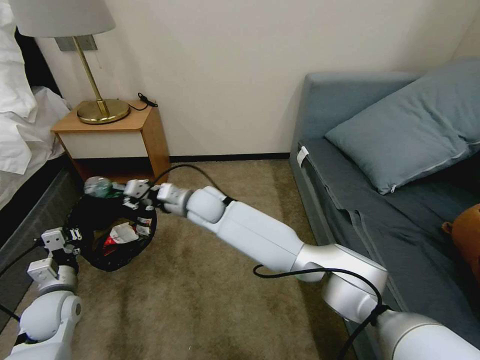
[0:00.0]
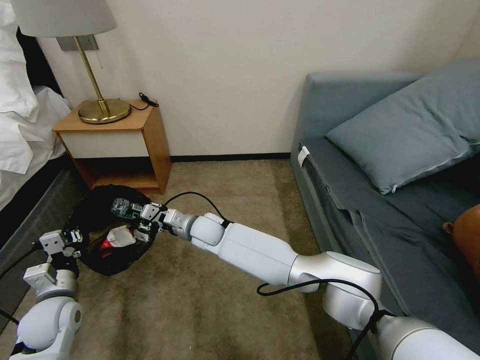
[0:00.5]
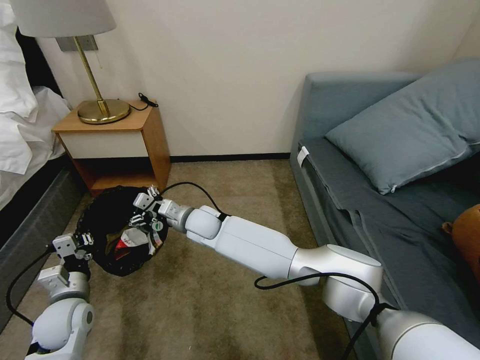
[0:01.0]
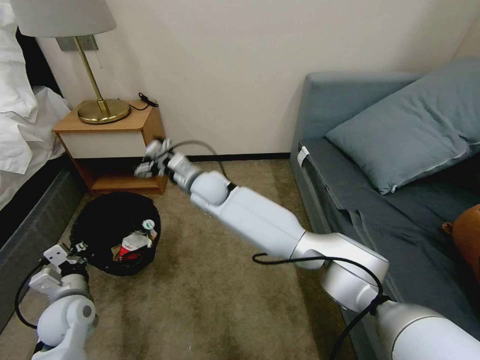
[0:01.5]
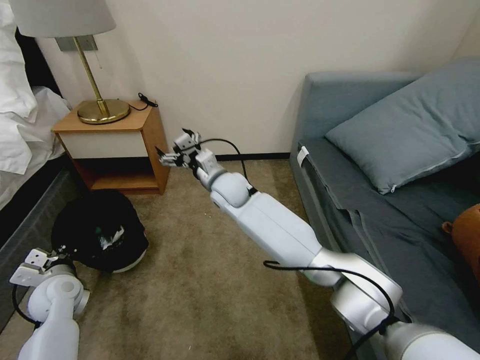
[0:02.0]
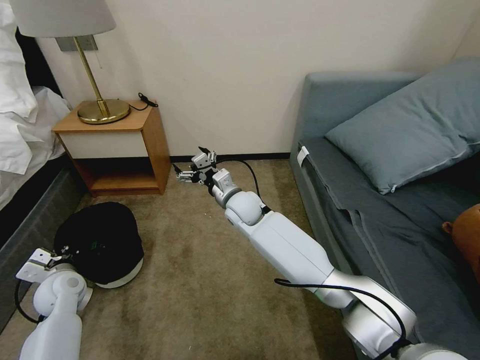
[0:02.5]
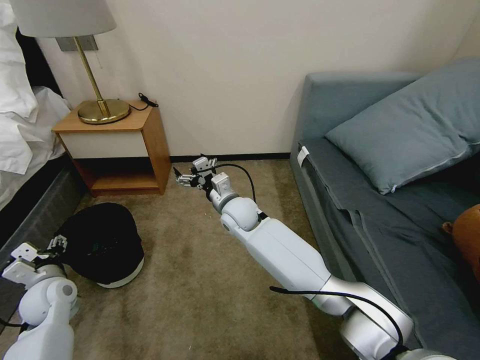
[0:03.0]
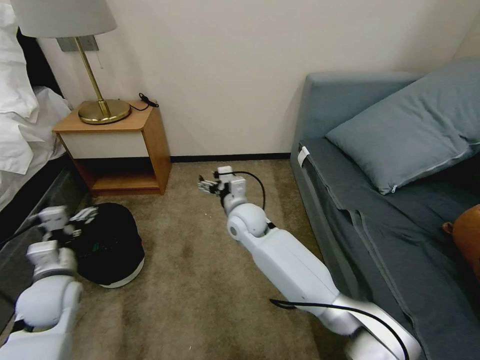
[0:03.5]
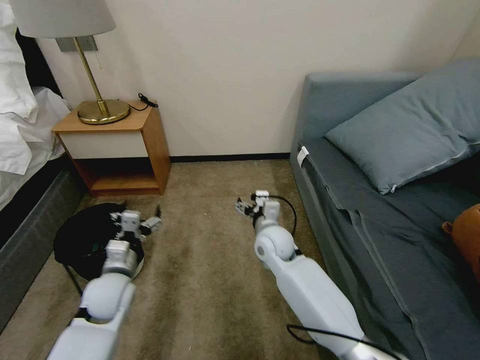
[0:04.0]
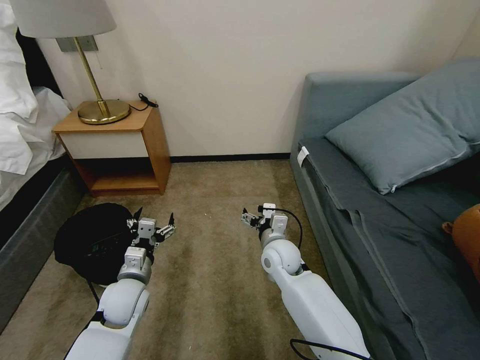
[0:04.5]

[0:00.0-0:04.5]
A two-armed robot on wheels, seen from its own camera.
Task of the whole recording: Pick up the trash bin, then pick up the garbage on the floor and place it into the trash bin.
0:00.0 to 0:02.0: The right gripper travels to the right by approximately 5 cm, travels downward and back again, approximately 10 cm each way, and opens.
0:02.0 to 0:04.5: The left gripper moves to the right, roughly 15 cm, and opens; the right gripper goes approximately 20 cm to the right, downward and backward.

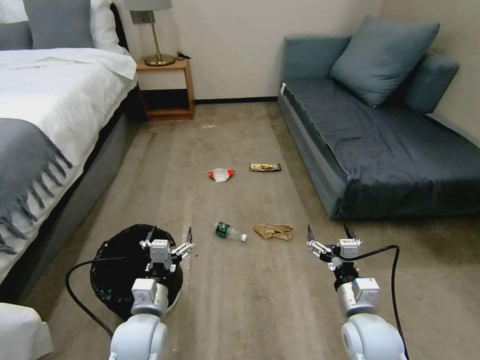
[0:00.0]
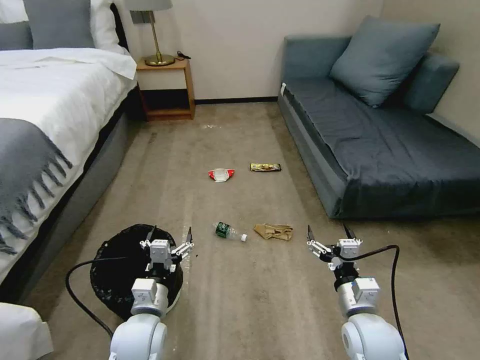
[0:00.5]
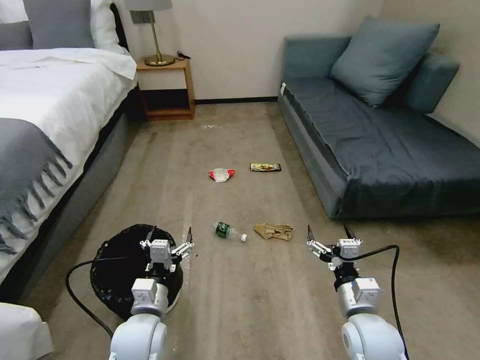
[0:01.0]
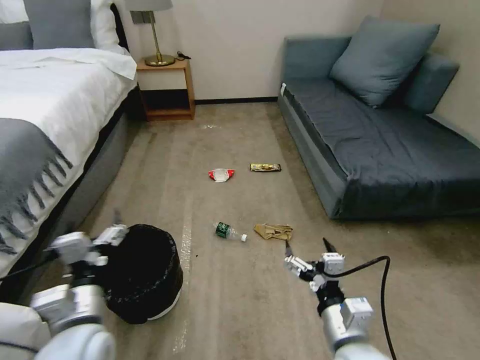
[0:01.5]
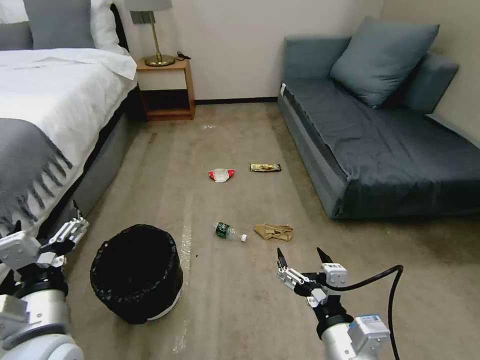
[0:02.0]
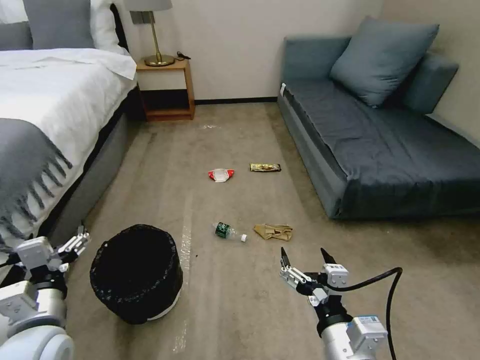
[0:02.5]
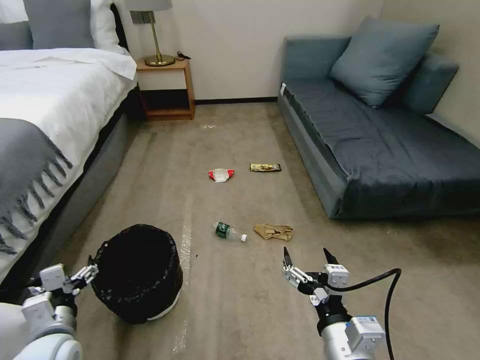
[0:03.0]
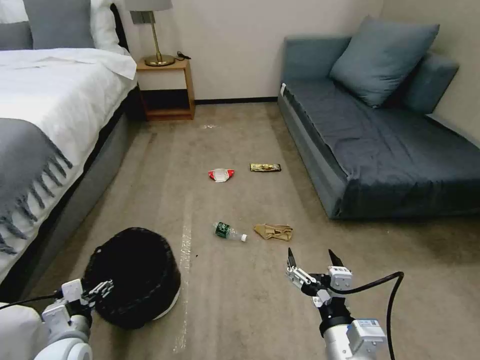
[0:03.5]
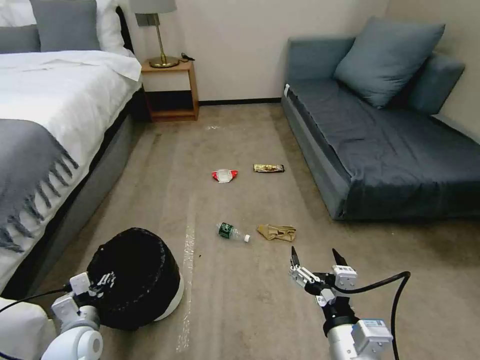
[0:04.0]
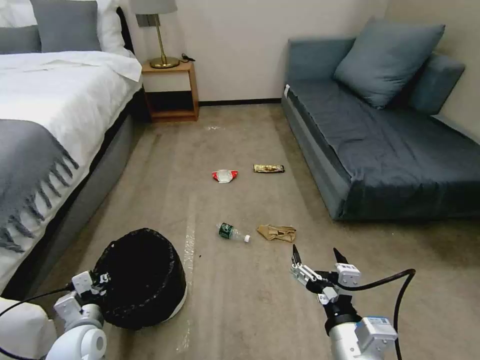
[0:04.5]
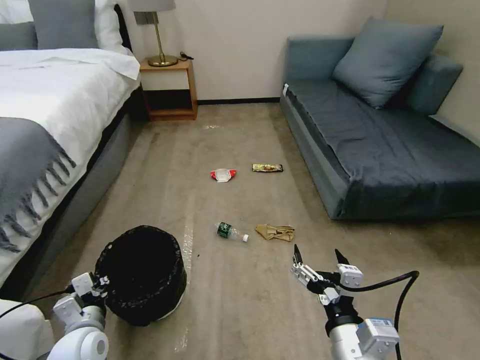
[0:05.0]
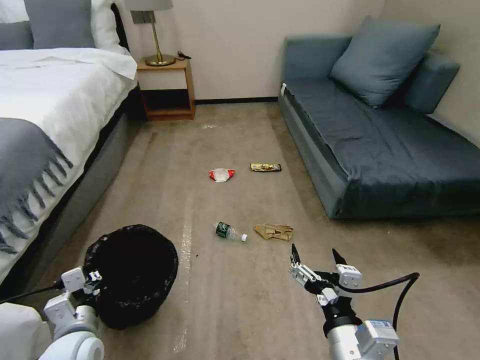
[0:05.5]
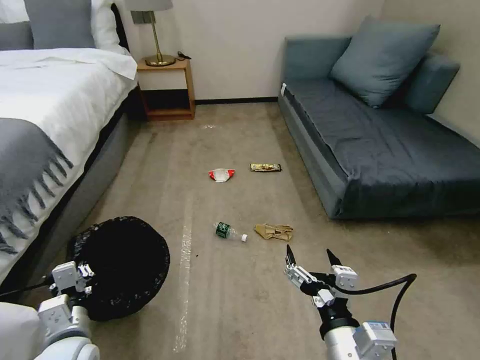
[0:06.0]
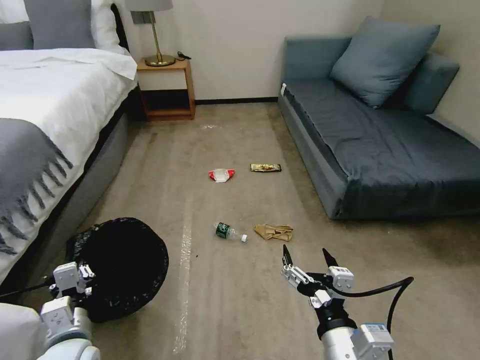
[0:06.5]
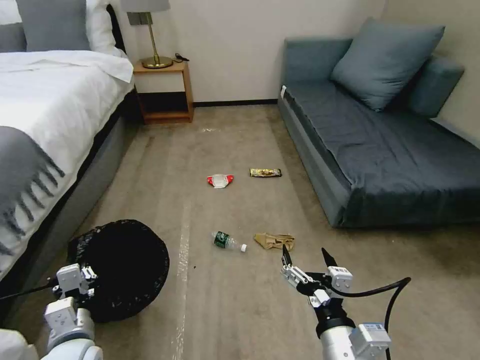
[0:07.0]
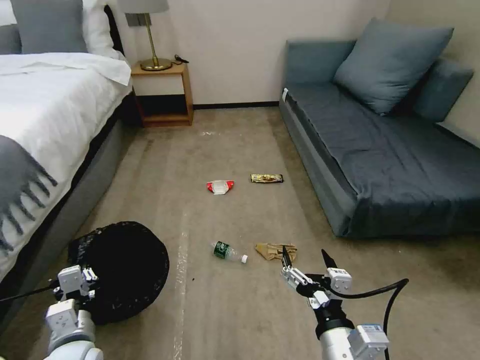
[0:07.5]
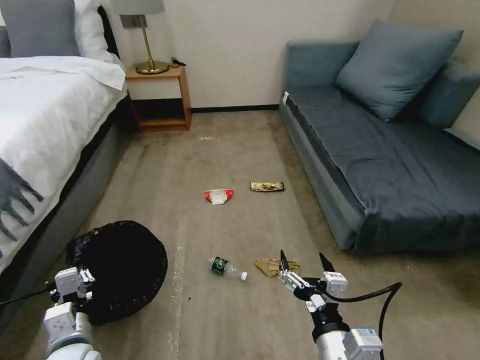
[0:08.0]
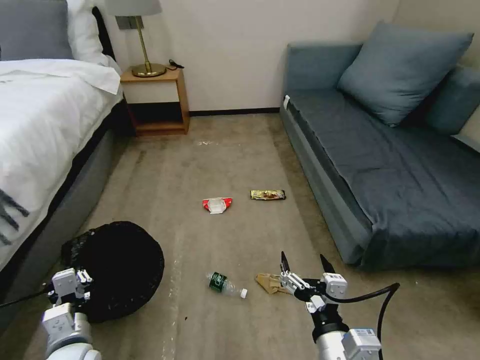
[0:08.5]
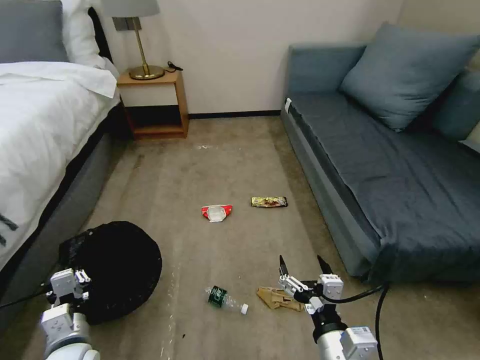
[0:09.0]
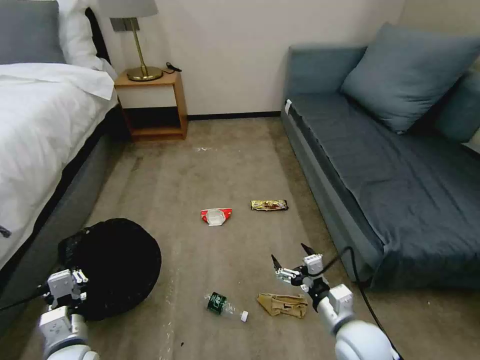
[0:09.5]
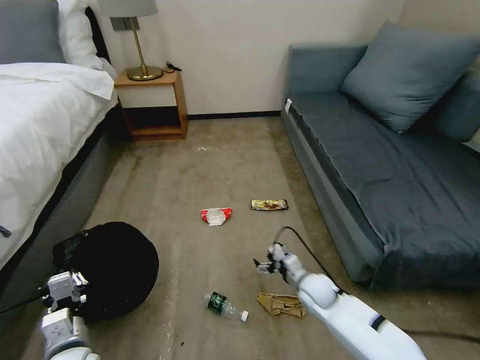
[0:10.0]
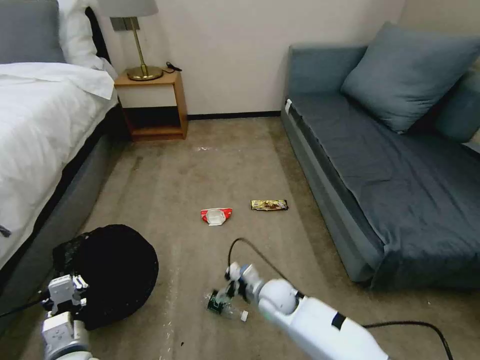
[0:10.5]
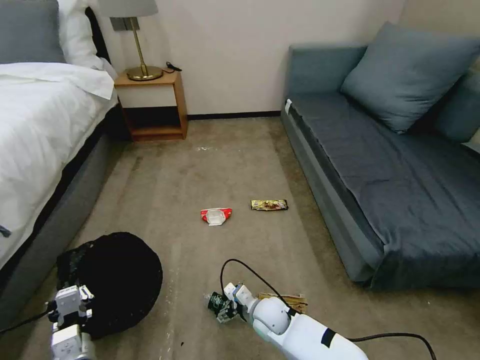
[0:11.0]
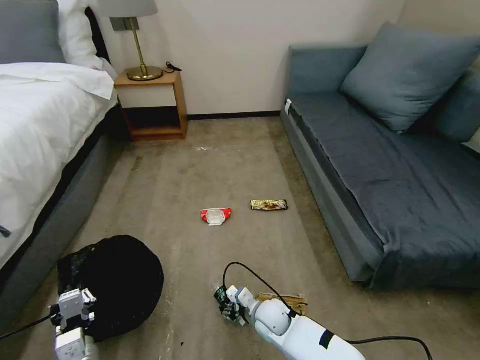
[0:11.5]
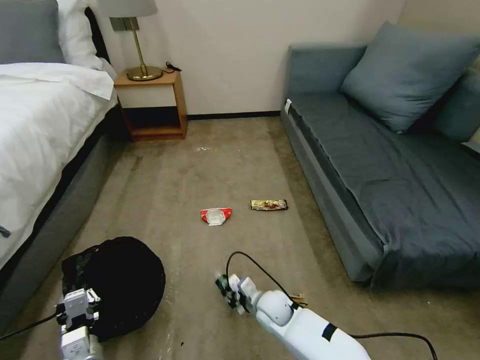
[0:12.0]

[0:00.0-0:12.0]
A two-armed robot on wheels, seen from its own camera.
Task of the whole recording: Pick up the trash bin, then pick up the garbage on the floor and place it into the trash bin.
0:02.0 to 0:04.0: The left gripper moves downward and to the left, about 20 cm.
0:04.0 to 0:06.0: The left gripper heads upward, covering roughly 5 cm, and closes its fingers.
0:08.0 to 0:10.0: The right gripper shifts some 30 cm forward and downward.
0:10.0 to 0:12.0: The left gripper moves about 5 cm. Meanwhile the right gripper moves to the left, some 15 cm, and closes up.

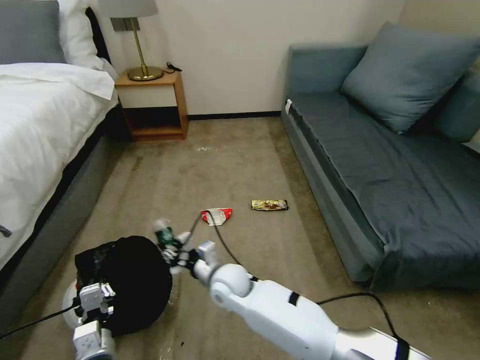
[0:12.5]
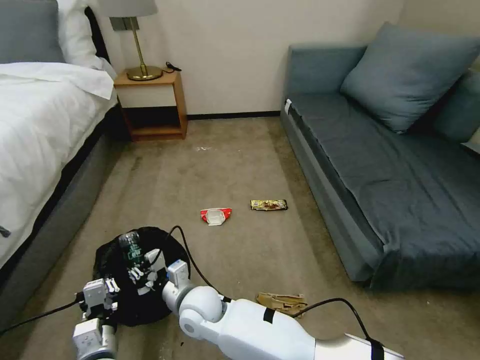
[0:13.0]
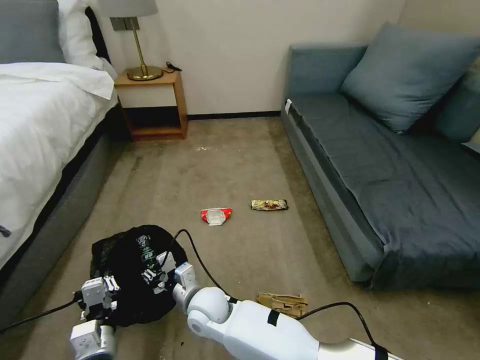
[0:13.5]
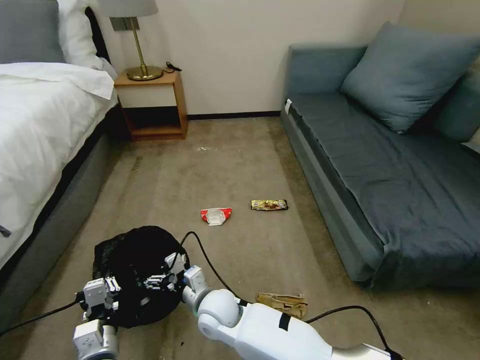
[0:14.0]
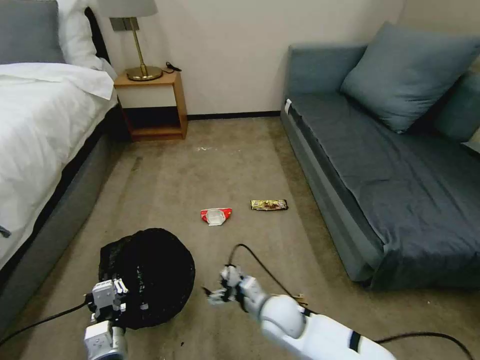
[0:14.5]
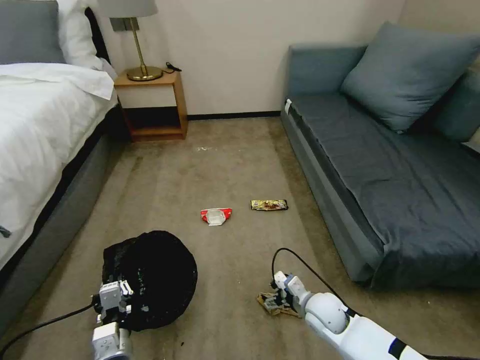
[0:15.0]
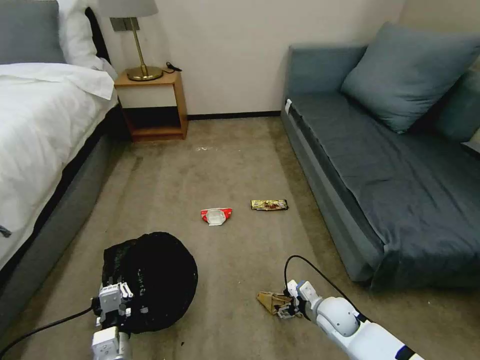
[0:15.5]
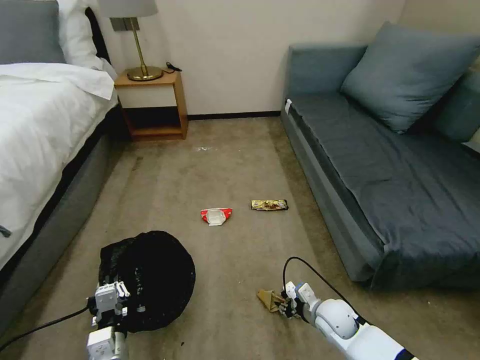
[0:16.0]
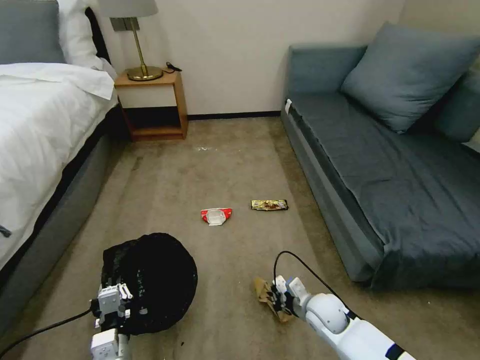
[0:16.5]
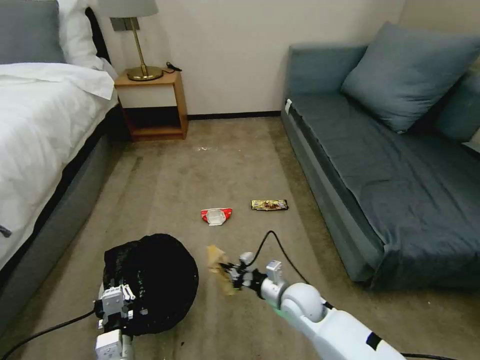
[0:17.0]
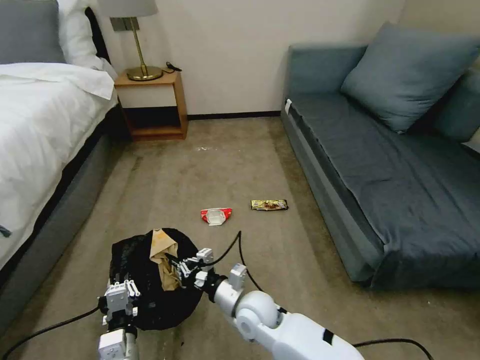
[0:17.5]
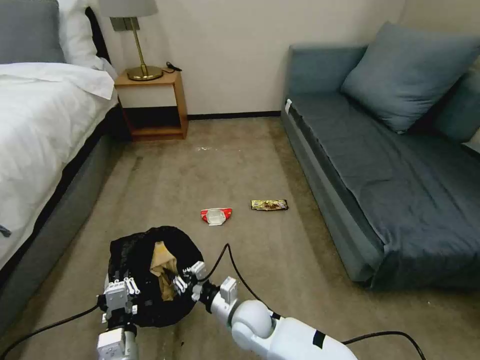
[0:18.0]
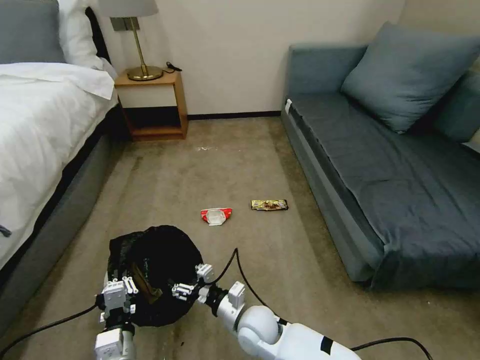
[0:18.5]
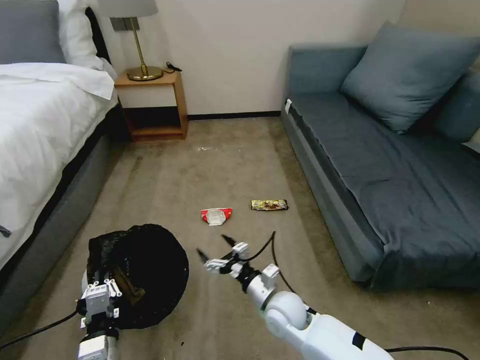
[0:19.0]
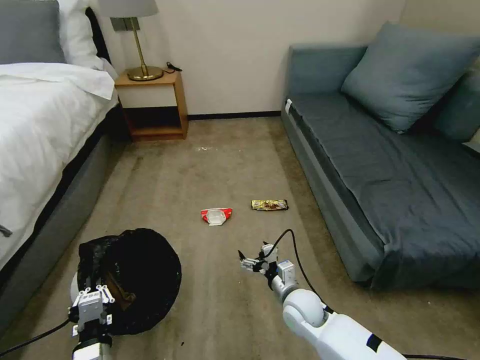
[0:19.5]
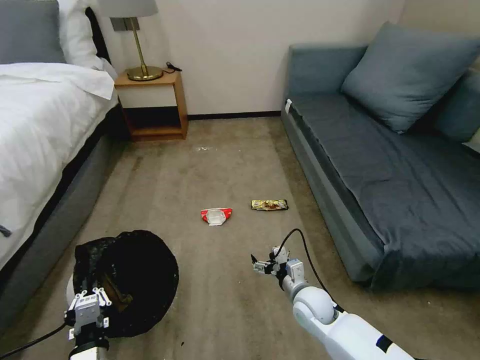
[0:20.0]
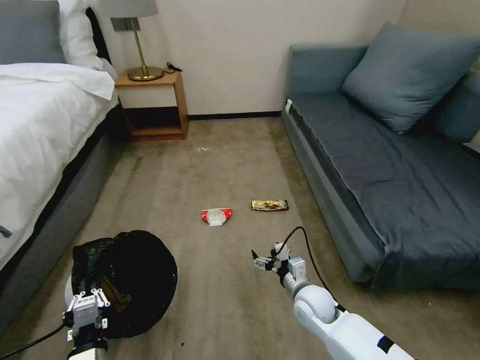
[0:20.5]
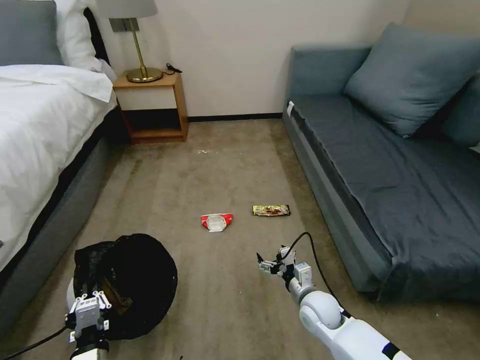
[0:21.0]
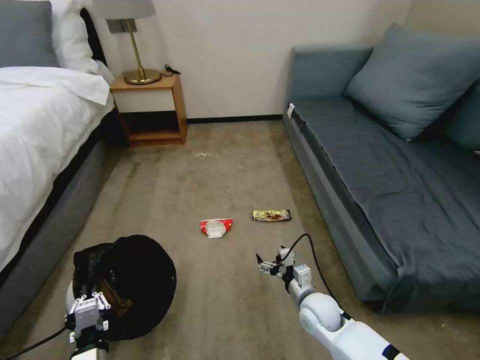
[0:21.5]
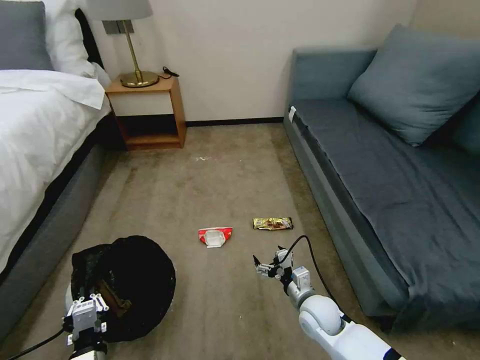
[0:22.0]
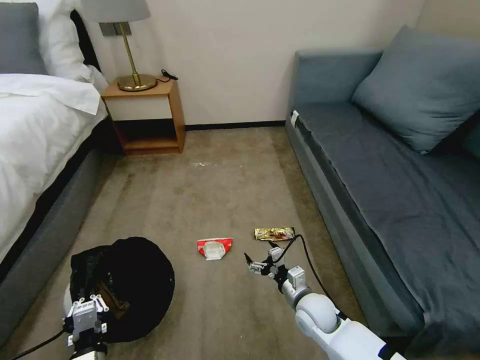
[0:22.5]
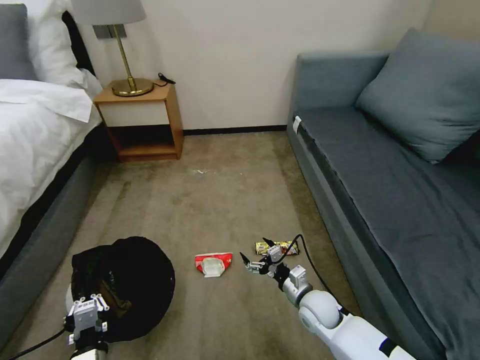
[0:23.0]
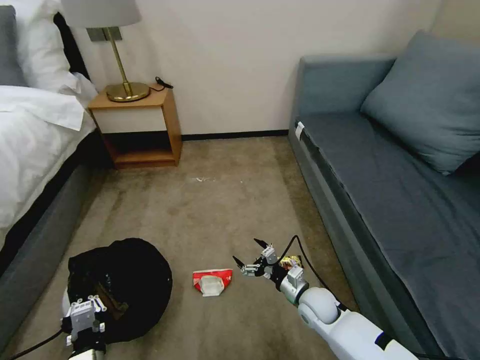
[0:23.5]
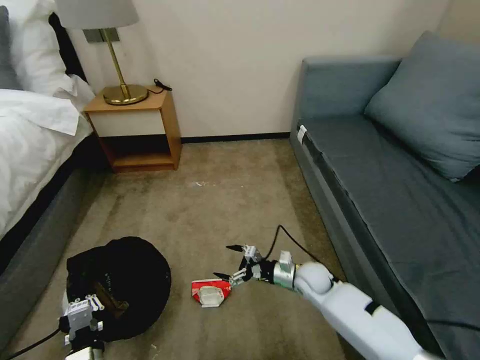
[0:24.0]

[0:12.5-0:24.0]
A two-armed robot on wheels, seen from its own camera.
Task of the whole recording: Pick up the trash bin, then pick up the garbage on the floor and place it into the trash bin.
0:12.5 to 0:14.5: The right gripper moves to the right and backward, some 15 cm, and opens.
0:14.5 to 0:16.5: The right gripper shifts roughly 15 cm to the right, and closes up.
0:16.5 to 0:18.5: The right gripper is displaced to the left by roughly 20 cm, and opens up.
0:18.5 to 0:20.0: The right gripper goes roughly 15 cm to the right.
0:22.0 to 0:24.0: The right gripper is displaced forward by about 10 cm.
